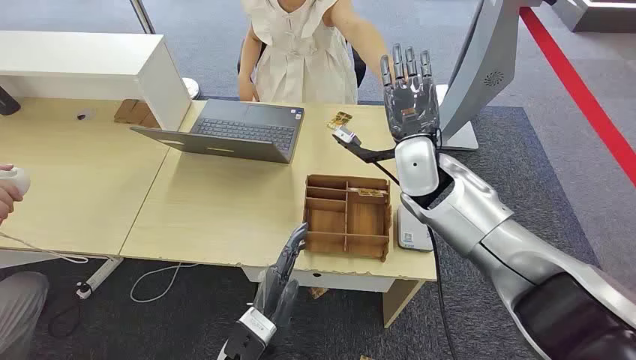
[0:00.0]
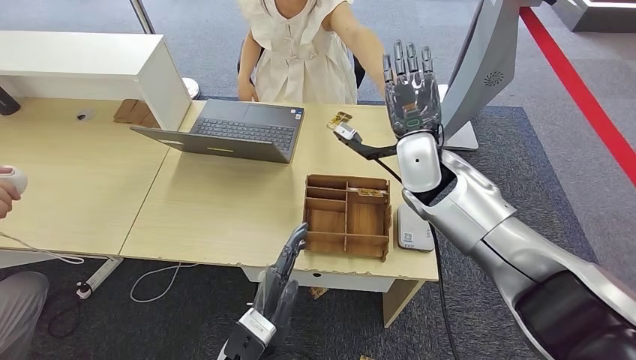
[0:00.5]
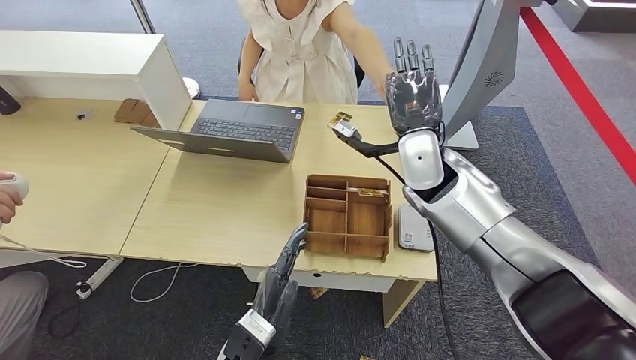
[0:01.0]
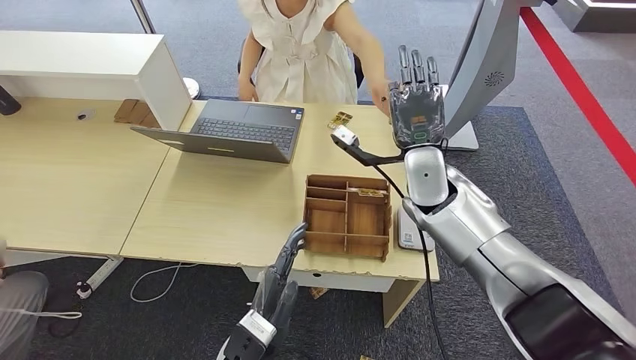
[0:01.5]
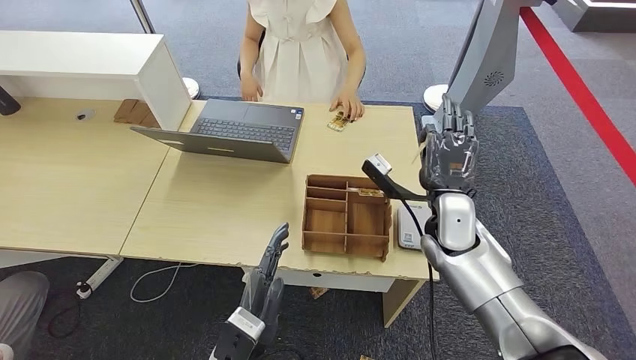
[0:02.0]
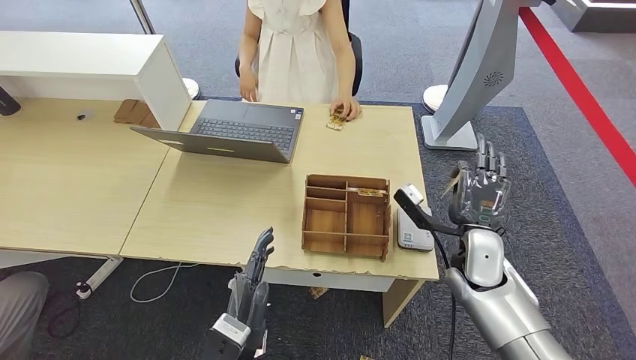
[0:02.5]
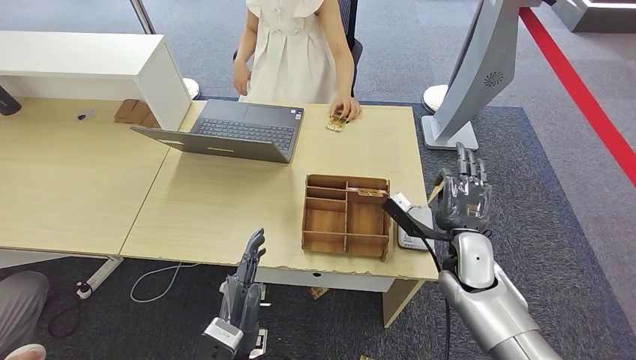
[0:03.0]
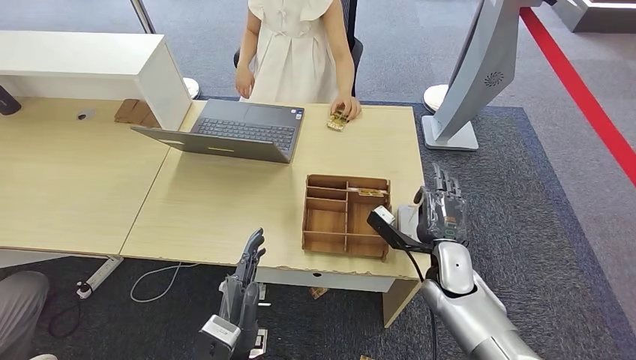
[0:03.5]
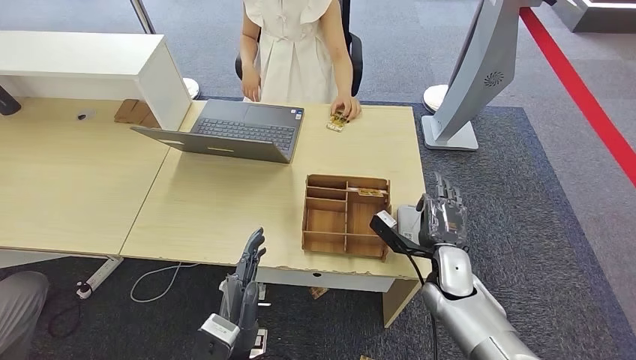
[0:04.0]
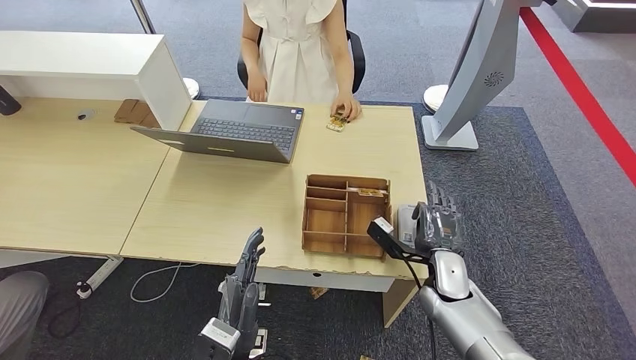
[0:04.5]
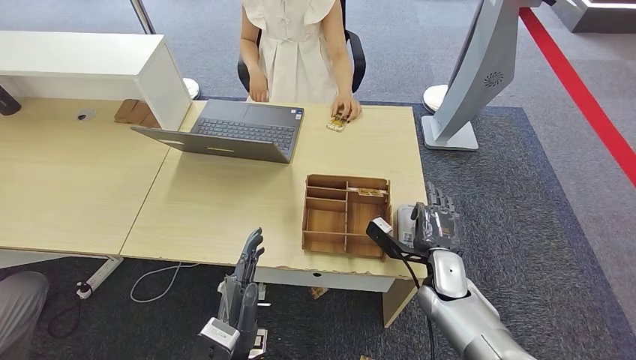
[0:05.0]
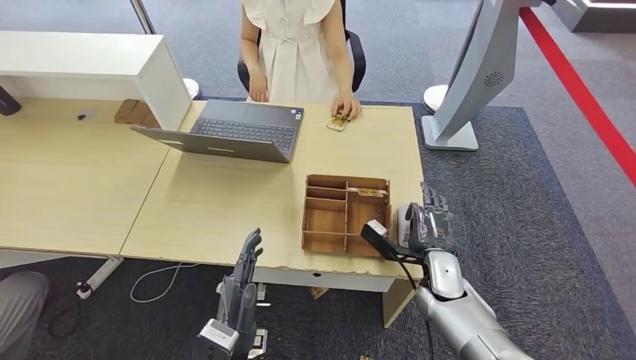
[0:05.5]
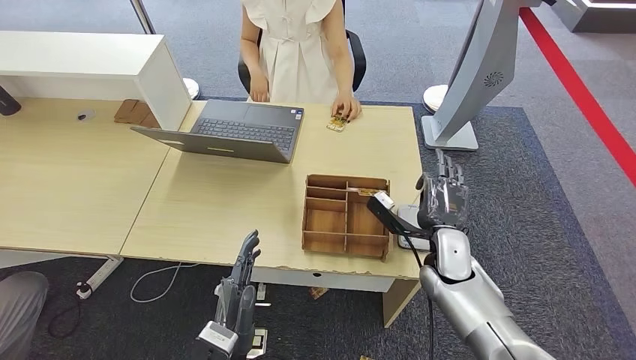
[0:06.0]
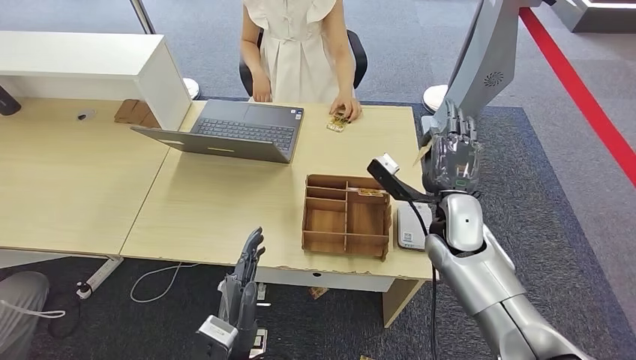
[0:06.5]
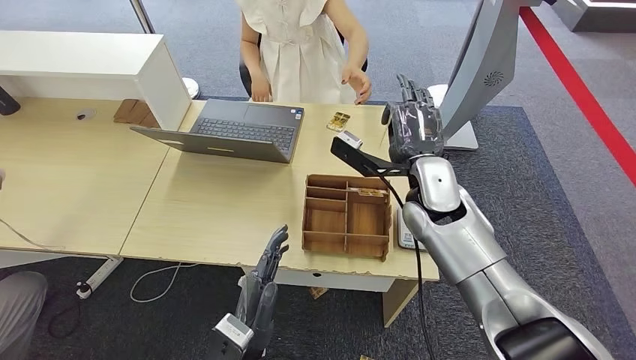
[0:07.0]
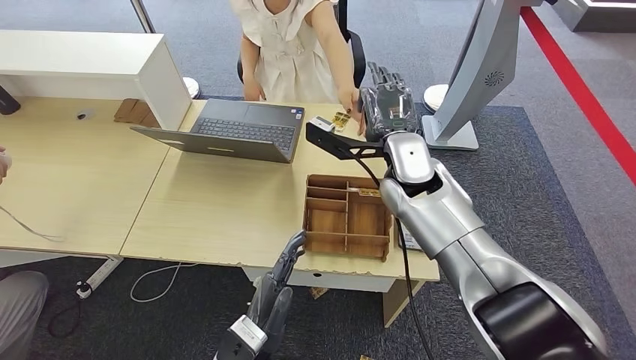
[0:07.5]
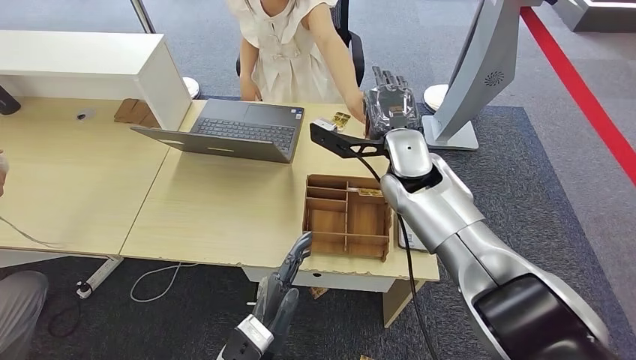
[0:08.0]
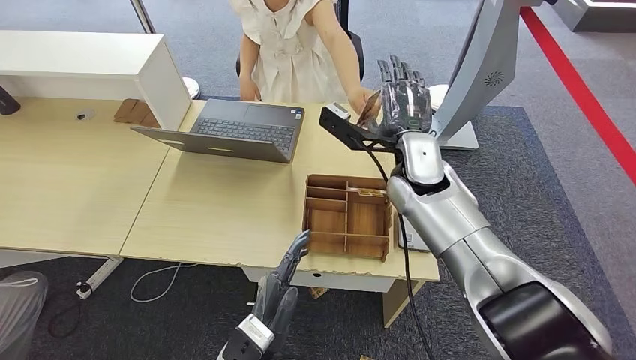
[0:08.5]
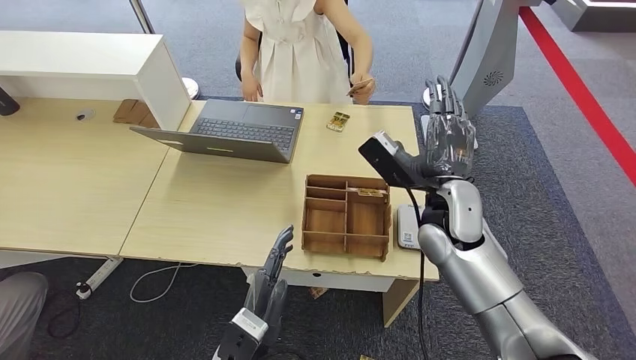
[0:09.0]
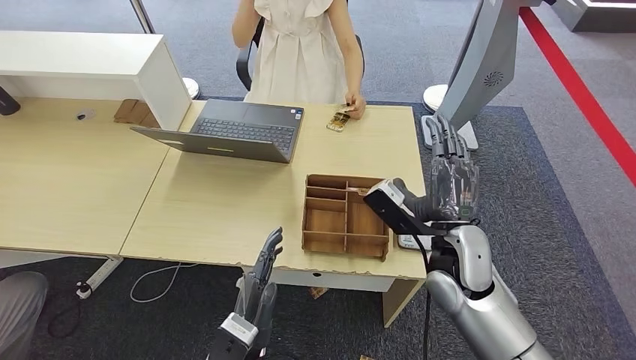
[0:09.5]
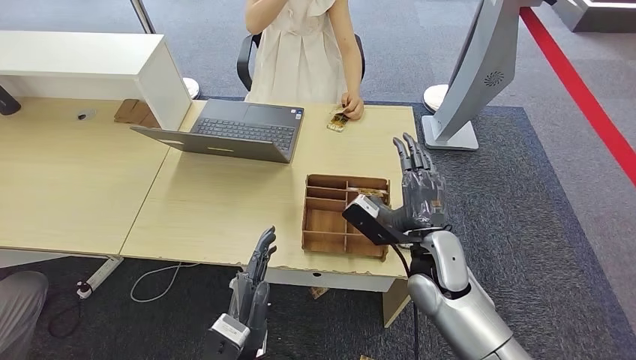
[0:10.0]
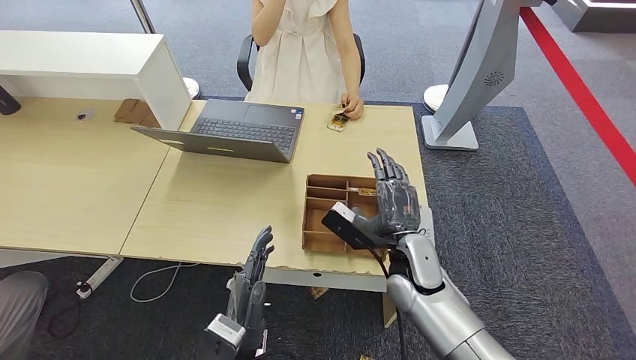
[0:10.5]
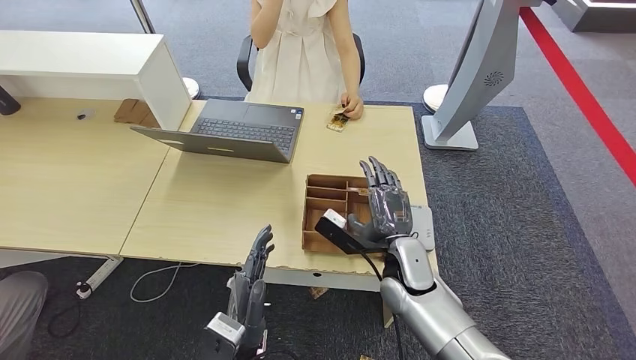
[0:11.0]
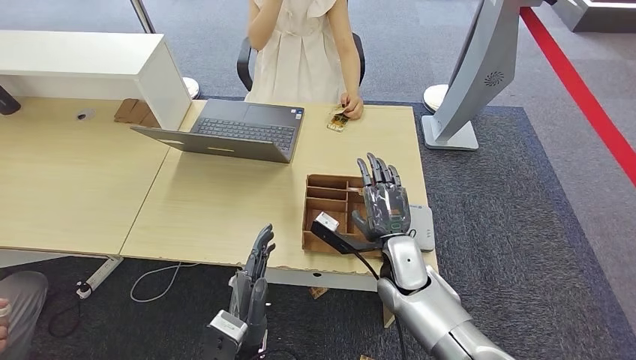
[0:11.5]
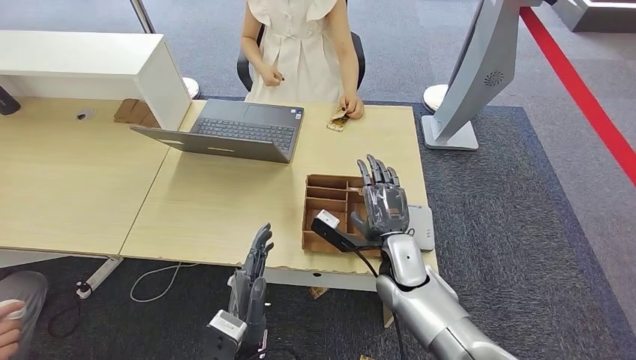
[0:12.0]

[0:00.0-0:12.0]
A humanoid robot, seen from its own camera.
Step, 0:00.0 to 0:02.0: Take the ID card from the person's hand.
Step, 0:02.5 to 0:06.5: Place the ID card on the card reader.
Step, 0:07.0 to 0:09.0: Hand the ID card to the person.
0:02.0 to 0:04.0: The right hand heads downward, covering roughly 10 cm.
0:04.0 to 0:06.0: The hands make only small movements.
0:06.0 to 0:08.0: The right hand travels upward, forward and to the left by approximately 20 cm.
0:08.0 to 0:10.0: The right hand is displaced backward and downward by about 20 cm.
0:10.0 to 0:12.0: The right hand goes approximately 5 cm downward.

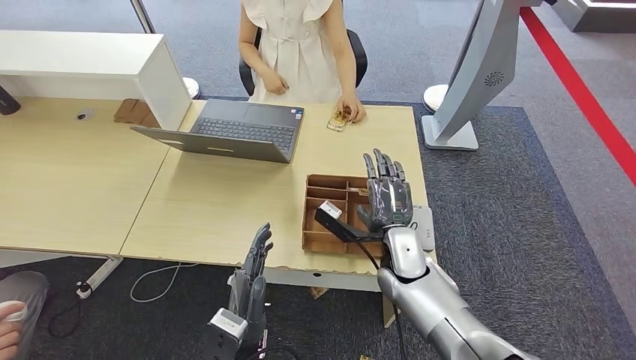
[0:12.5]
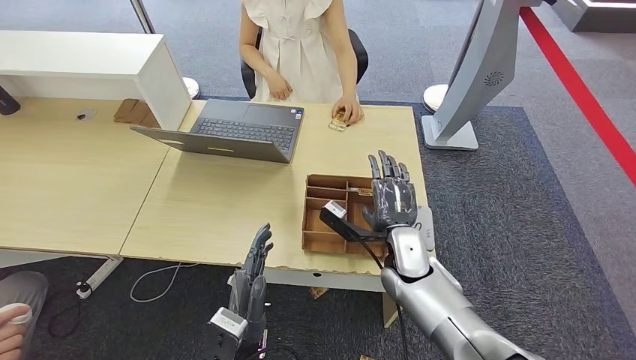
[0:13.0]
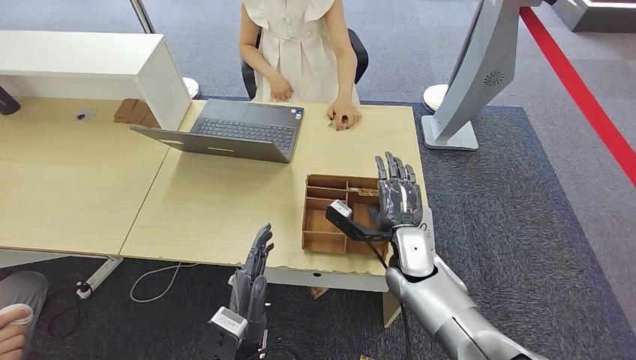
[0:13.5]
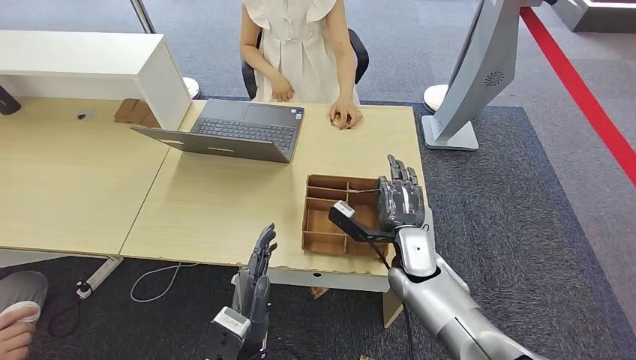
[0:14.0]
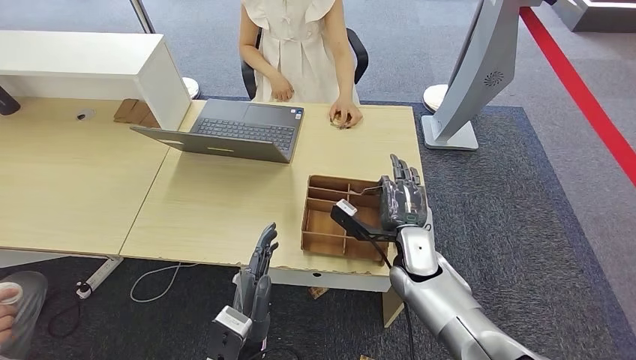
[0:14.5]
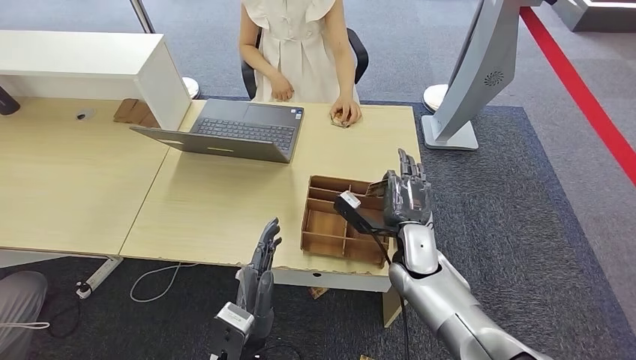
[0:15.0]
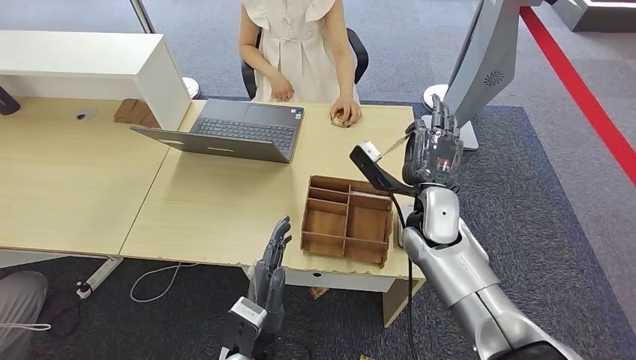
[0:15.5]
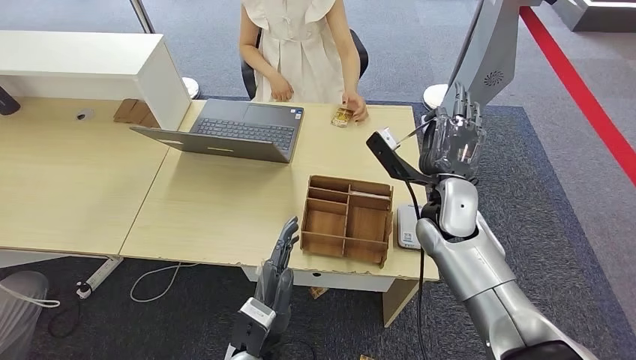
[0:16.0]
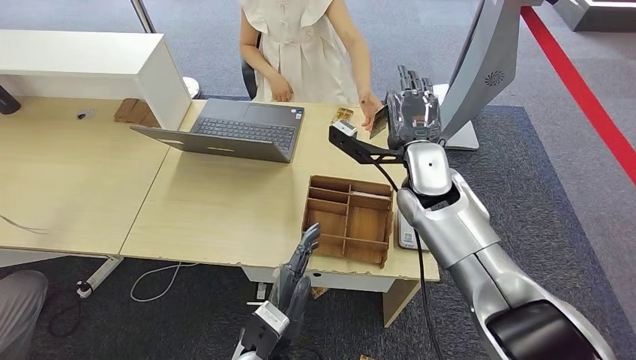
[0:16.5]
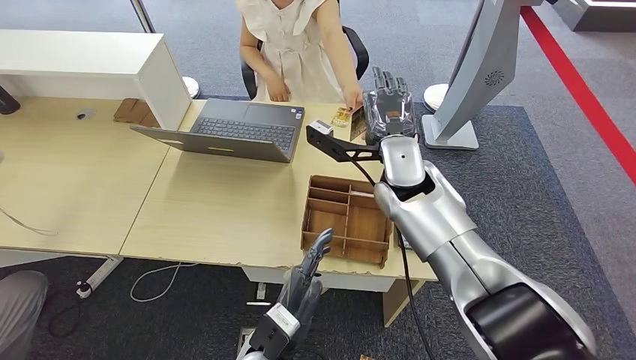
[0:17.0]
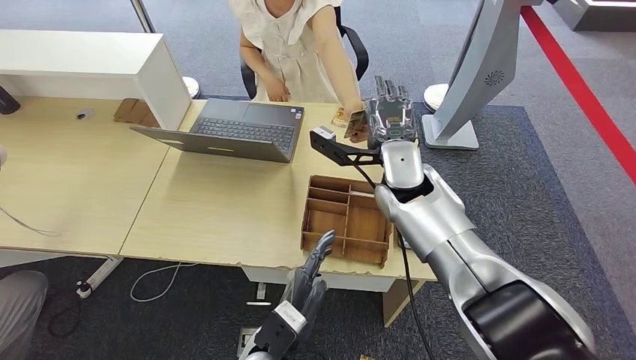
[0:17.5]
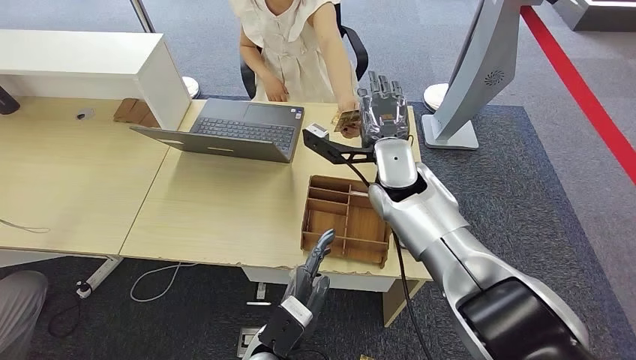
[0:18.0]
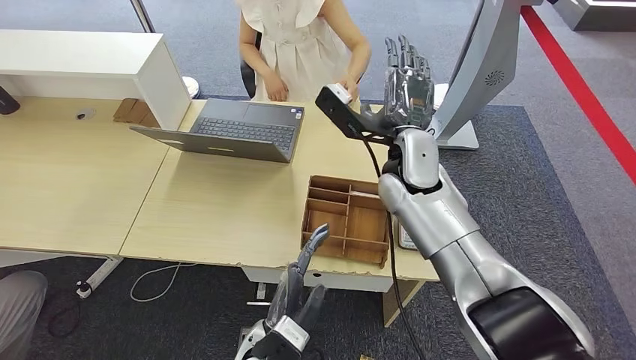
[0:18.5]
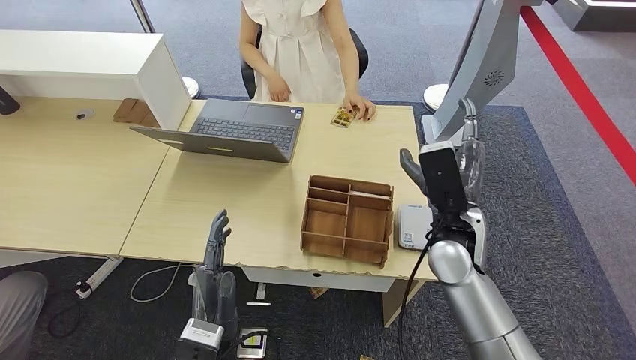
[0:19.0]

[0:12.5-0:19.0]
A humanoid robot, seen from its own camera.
Step, 0:14.0 to 0:15.5: Pick up the room key from the key card box.
Step, 0:16.0 to 0:19.0: Hand the room key to the person.
0:12.5 to 0:14.5: The hands stay close to where they were, moving slightly.
0:14.5 to 0:17.0: The right hand goes roughly 15 cm upward and forward.
0:17.0 to 0:19.0: The left hand is displaced to the left by about 5 cm; the right hand travels backward and to the right by roughly 10 cm.
